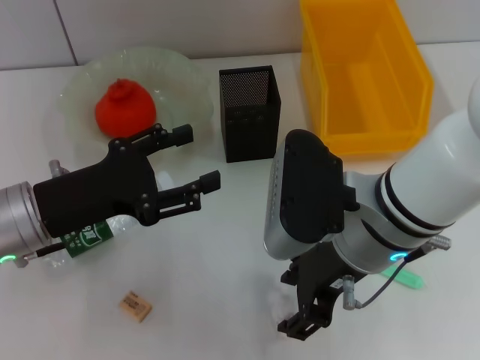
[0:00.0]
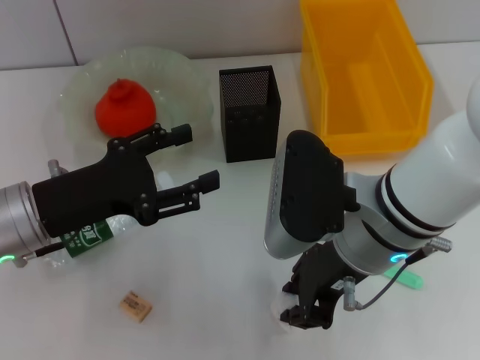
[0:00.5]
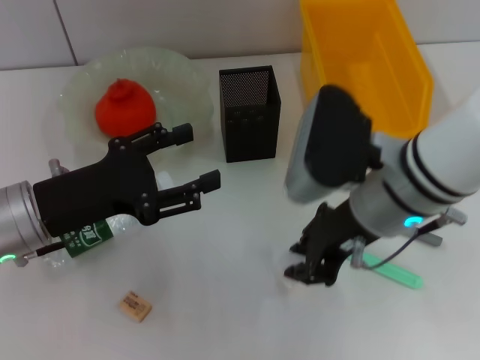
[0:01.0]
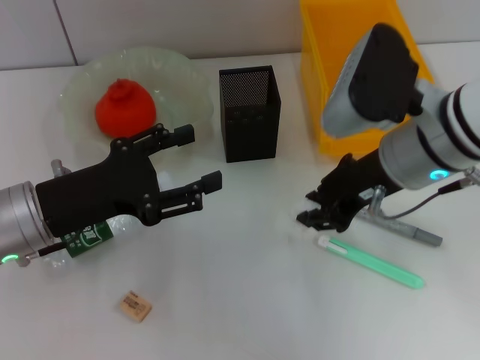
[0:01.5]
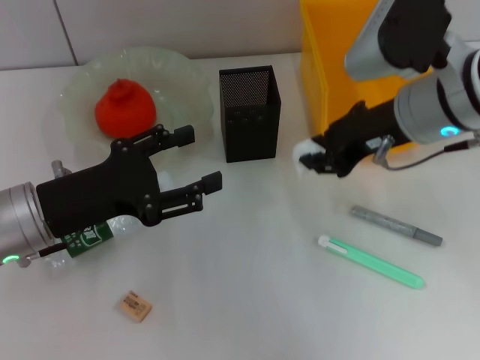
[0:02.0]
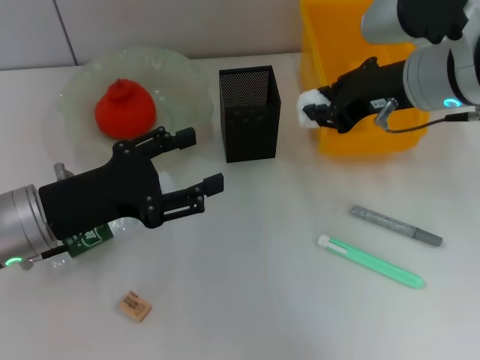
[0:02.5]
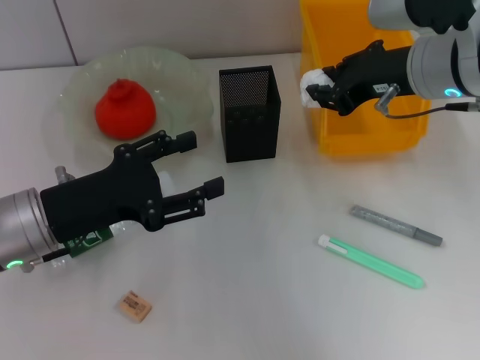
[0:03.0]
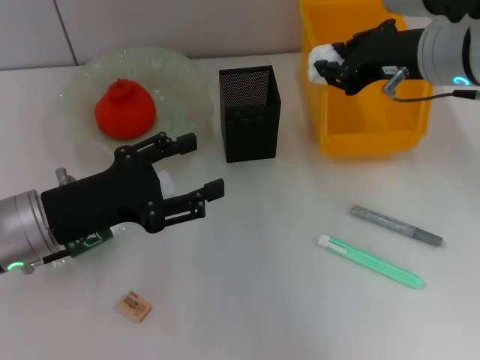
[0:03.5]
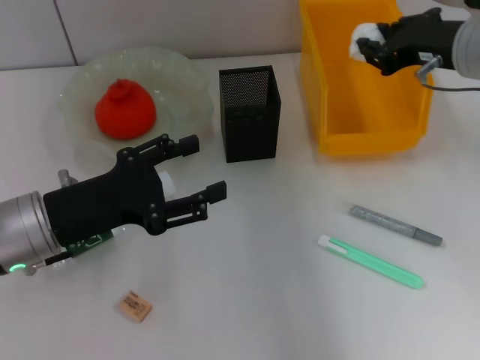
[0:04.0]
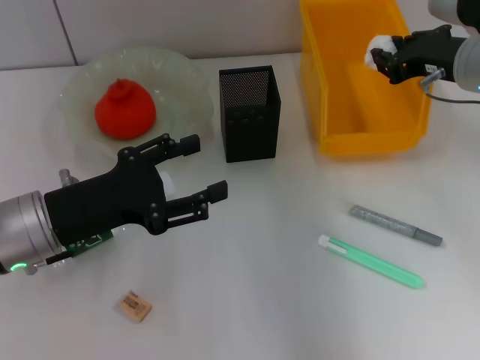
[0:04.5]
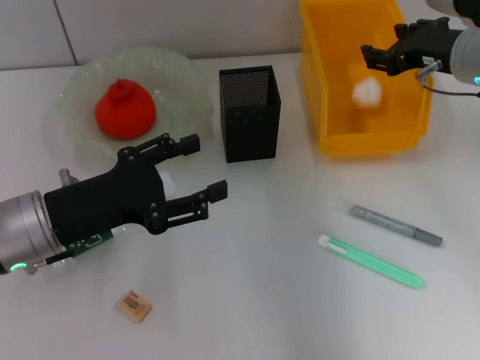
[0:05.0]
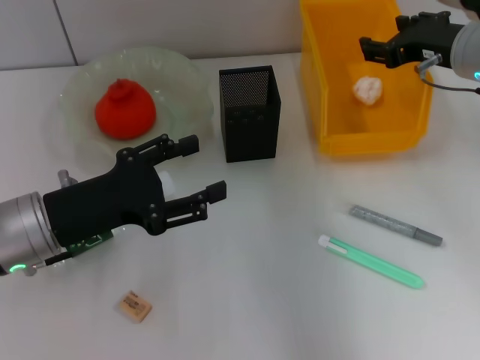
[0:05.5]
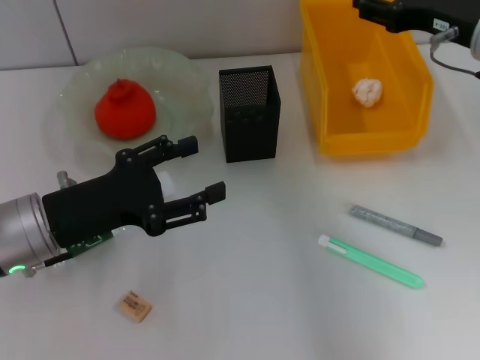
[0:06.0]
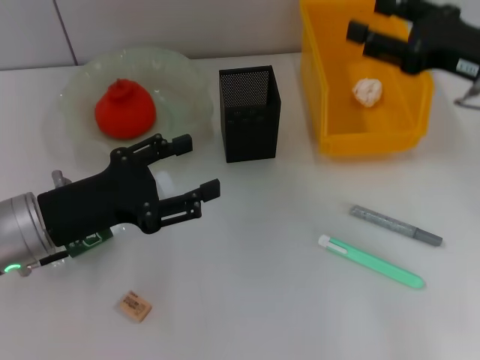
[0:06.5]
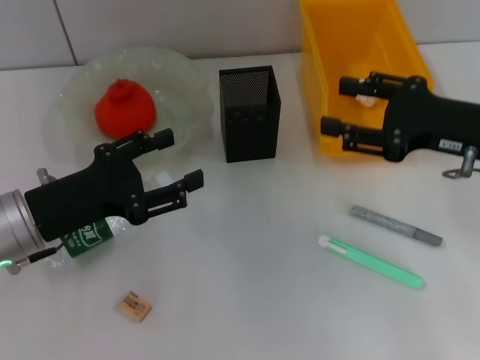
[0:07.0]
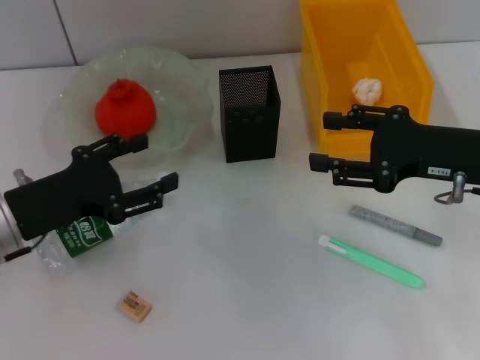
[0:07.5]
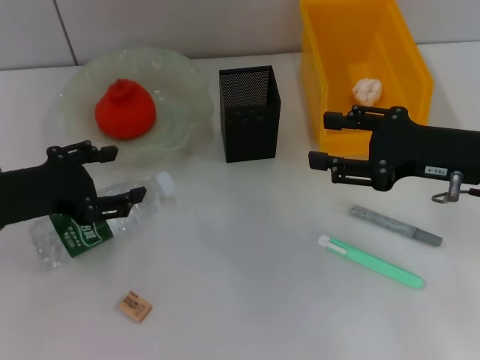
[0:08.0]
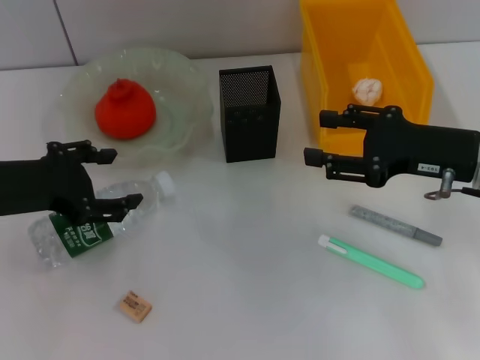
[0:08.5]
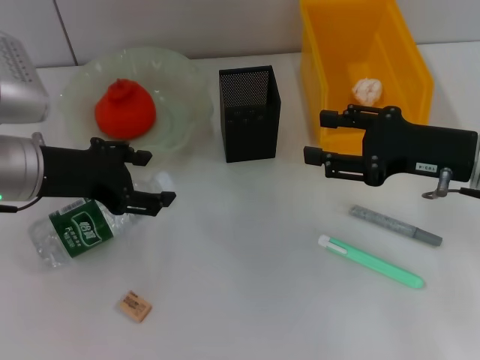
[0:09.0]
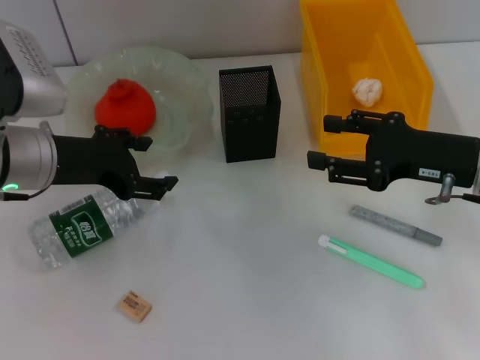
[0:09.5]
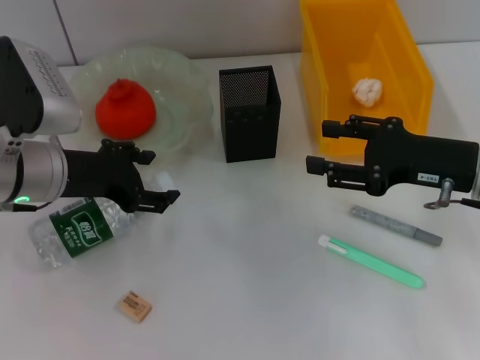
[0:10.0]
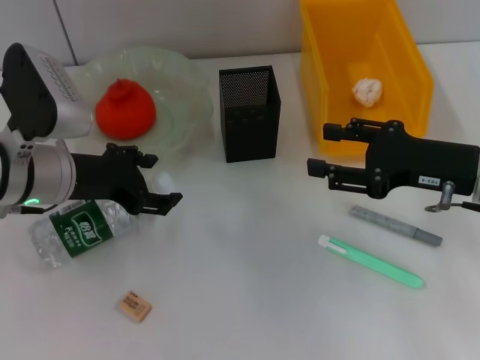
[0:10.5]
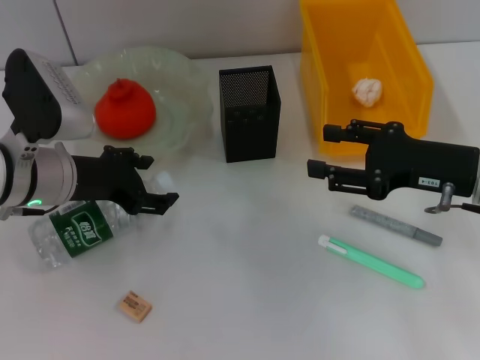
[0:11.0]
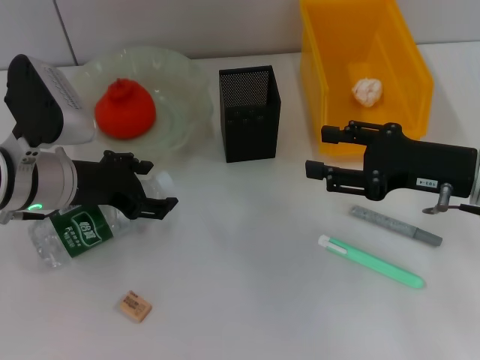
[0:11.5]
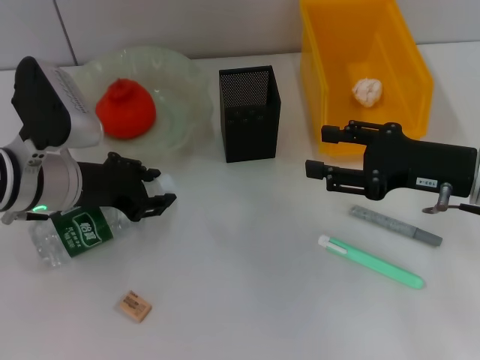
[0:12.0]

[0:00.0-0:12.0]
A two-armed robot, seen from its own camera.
Step, 0:01.0 to 0:05.0: Place the paper ball into the trash can with the right hand.
0:00.0 to 0:02.0: The right gripper heads to the right and forward, covering roughly 10 cm, and closes up.
0:02.0 to 0:04.0: The right gripper goes approximately 5 cm to the right.
0:04.0 to 0:06.0: The right gripper opens its fingers.
0:06.0 to 0:08.0: The left gripper changes place by about 5 cm; the right gripper moves backward and downward, some 10 cm.
0:08.0 to 0:10.0: The left gripper travels to the right by approximately 5 cm.
0:10.0 to 0:12.0: The grippers stay close to where they were, moving slightly.

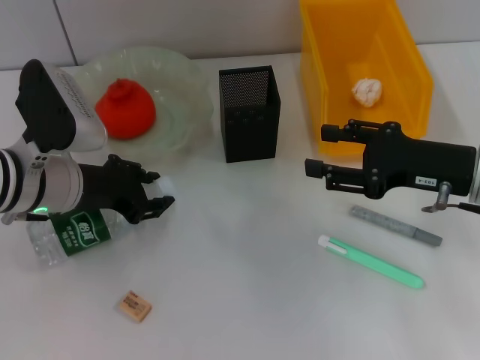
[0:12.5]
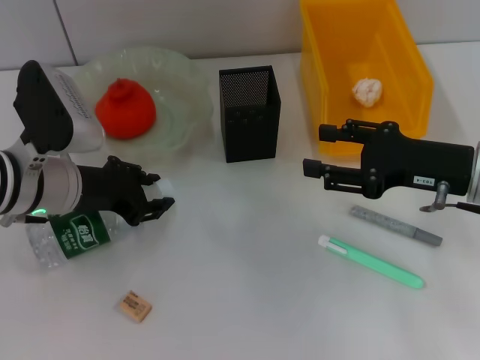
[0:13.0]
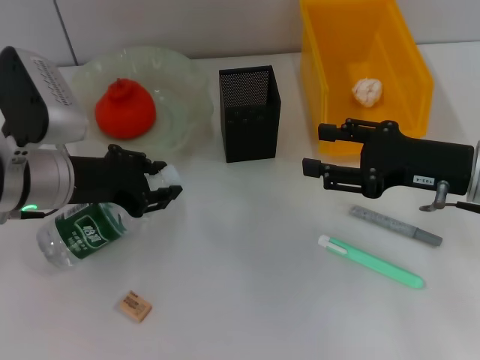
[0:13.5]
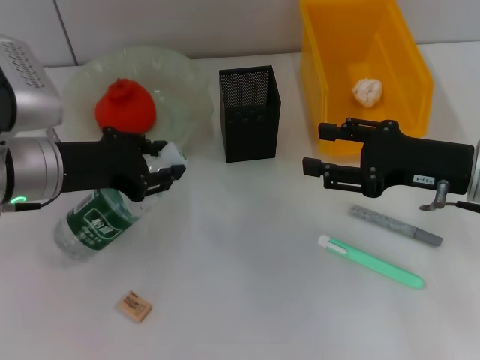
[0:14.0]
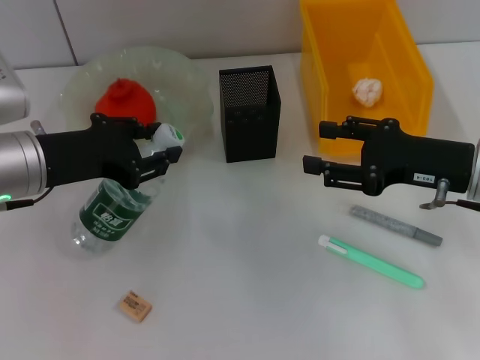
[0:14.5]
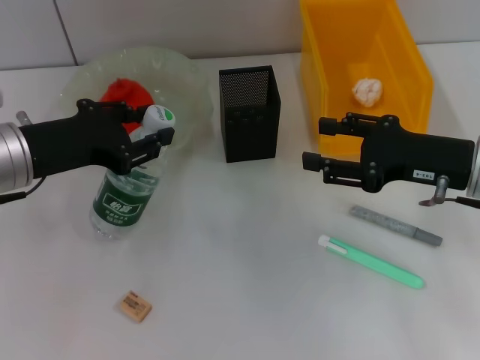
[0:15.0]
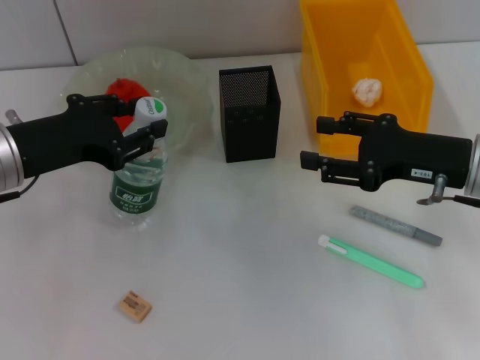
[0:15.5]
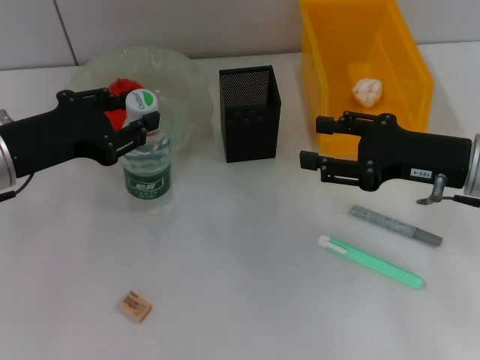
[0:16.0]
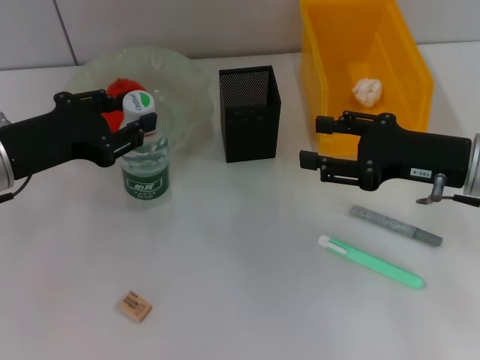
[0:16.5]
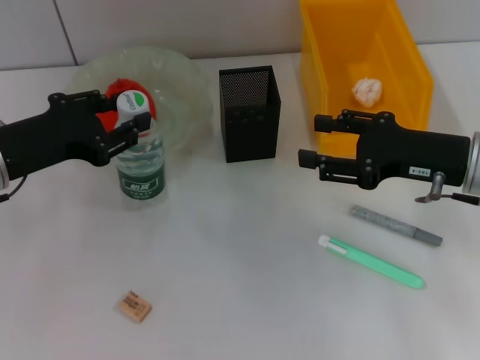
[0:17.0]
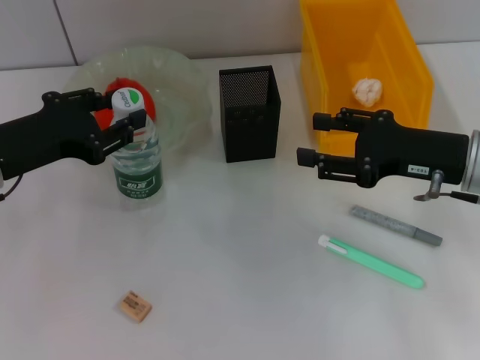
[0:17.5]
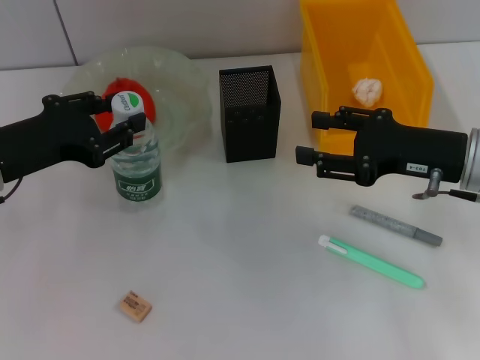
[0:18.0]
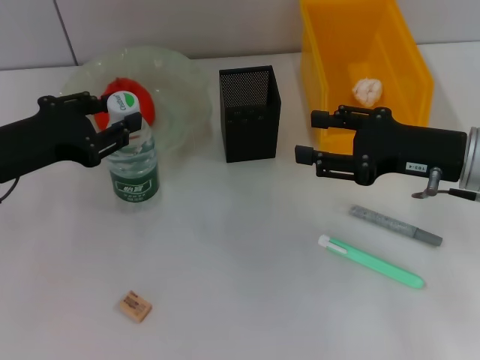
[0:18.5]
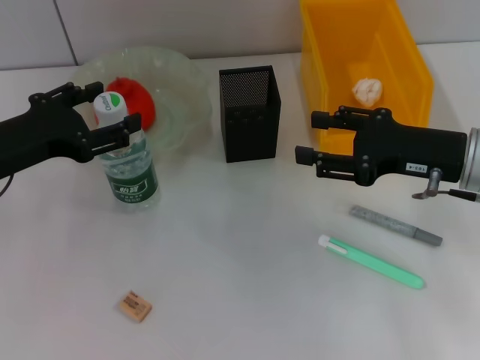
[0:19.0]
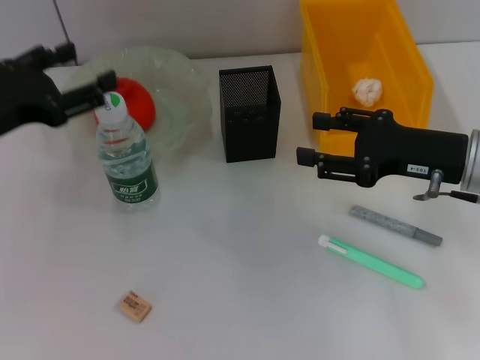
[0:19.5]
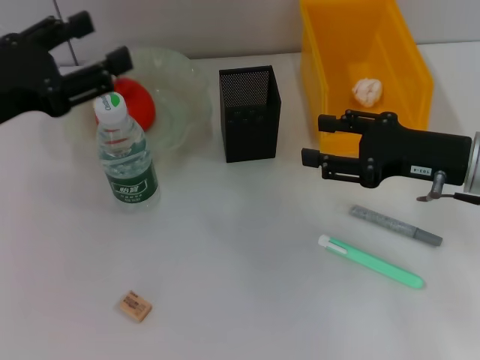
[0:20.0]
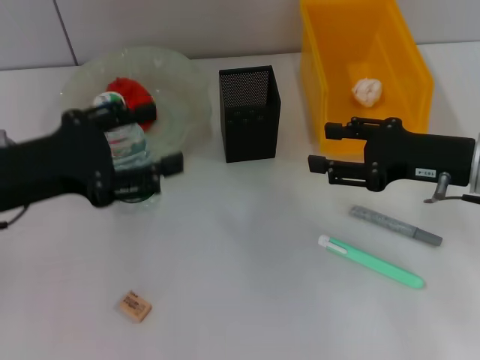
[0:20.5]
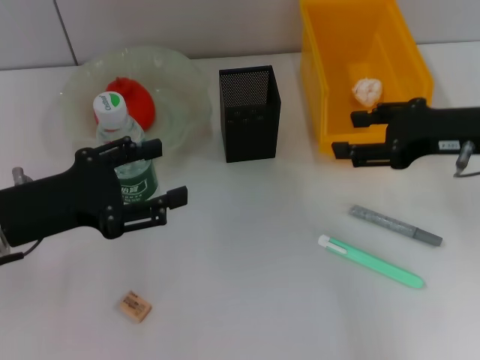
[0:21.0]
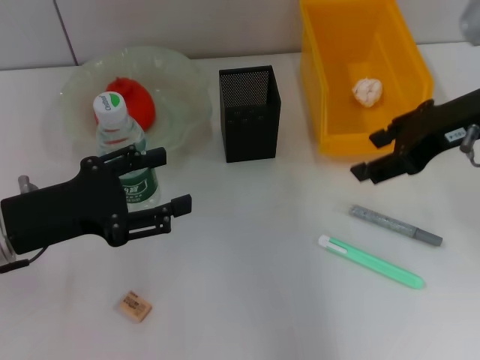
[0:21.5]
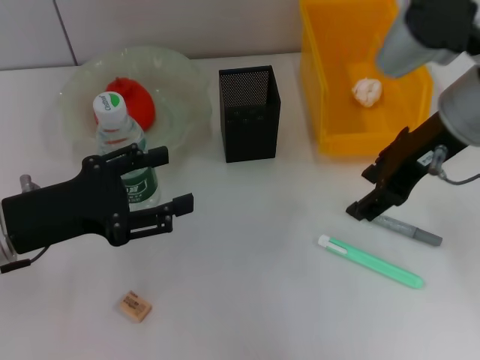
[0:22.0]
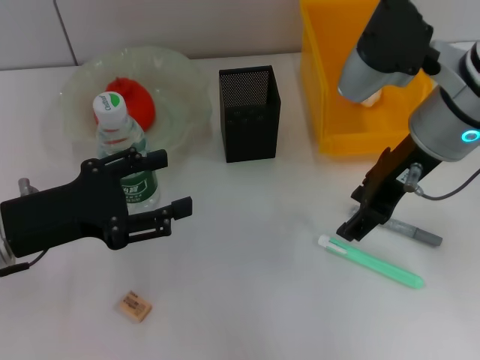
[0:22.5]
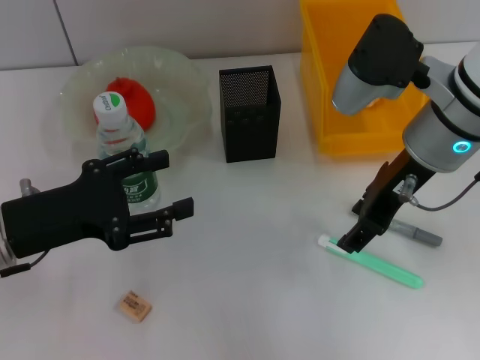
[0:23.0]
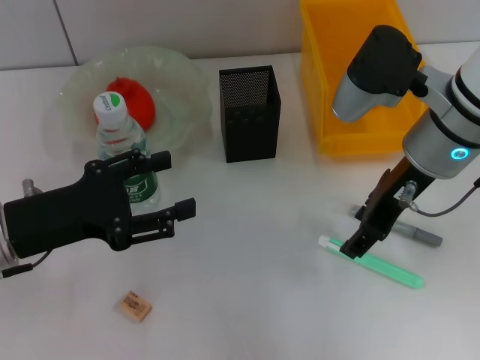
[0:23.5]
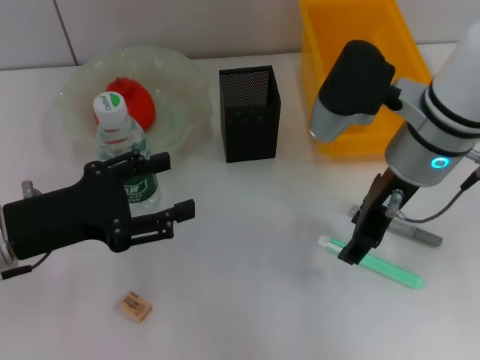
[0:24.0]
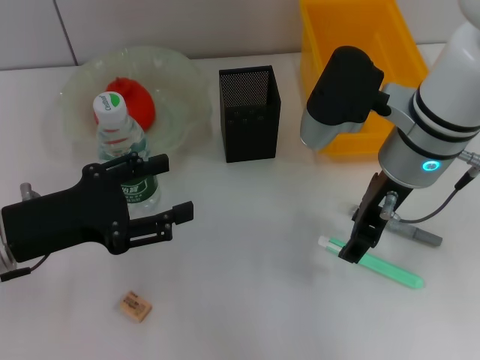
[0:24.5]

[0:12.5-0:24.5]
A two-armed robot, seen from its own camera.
Step, 0:13.5 to 0:19.0: Place the water bottle on the table with the left hand.
0:12.5 to 0:14.5: The left gripper moves about 5 cm.
0:14.5 to 0:16.5: There are only small adjustments of the grippers.
0:16.5 to 0:18.5: The two grippers keep their place.
0:20.5 to 0:22.5: The right gripper is displaced to the left and upward by some 15 cm.
0:22.5 to 0:24.5: The grippers move only a little.

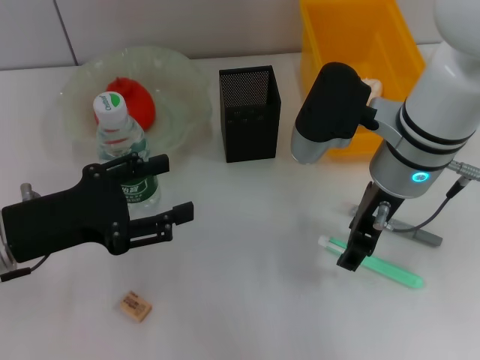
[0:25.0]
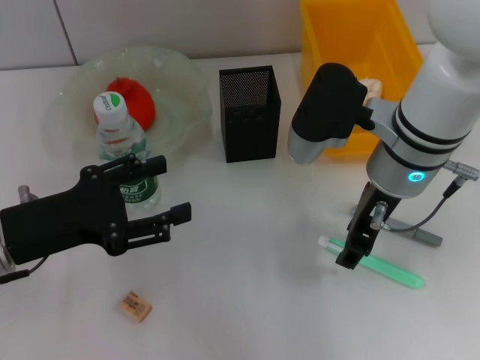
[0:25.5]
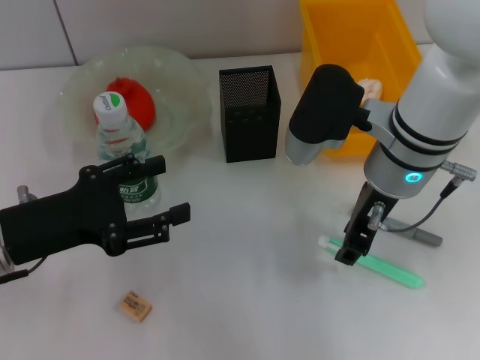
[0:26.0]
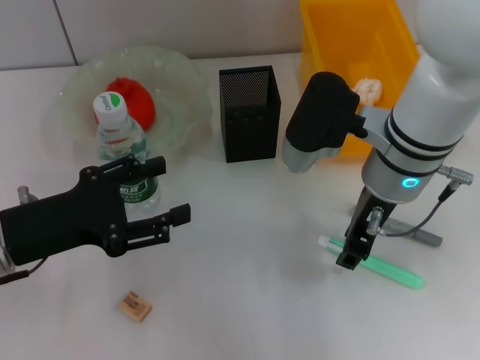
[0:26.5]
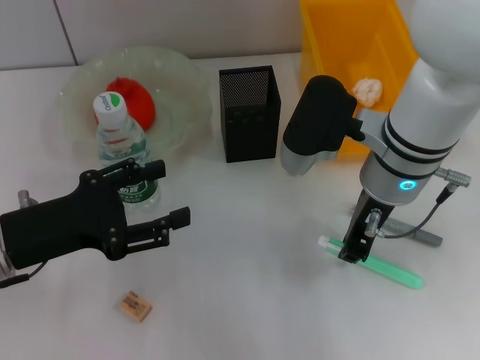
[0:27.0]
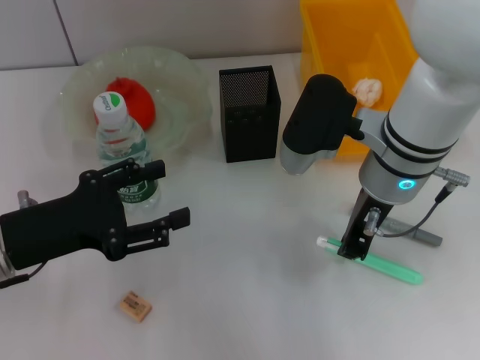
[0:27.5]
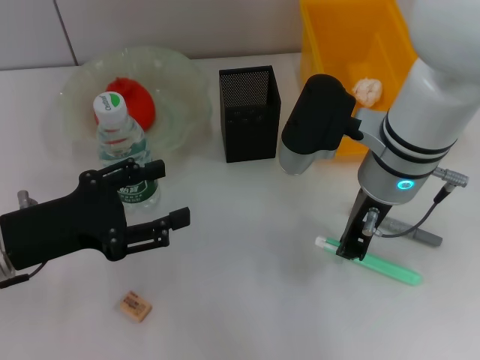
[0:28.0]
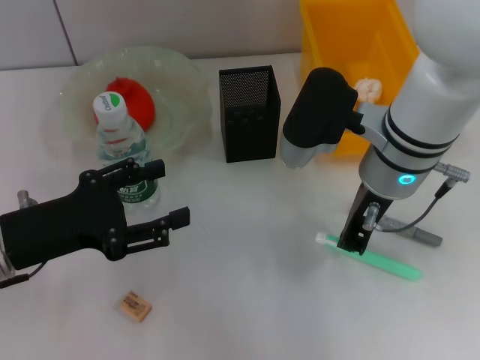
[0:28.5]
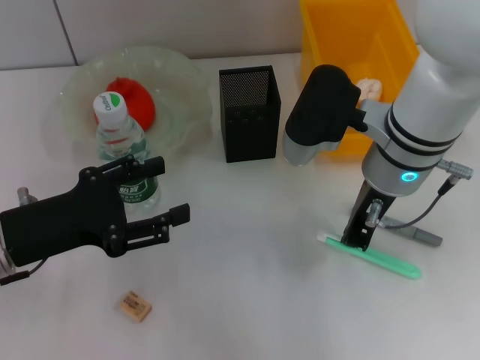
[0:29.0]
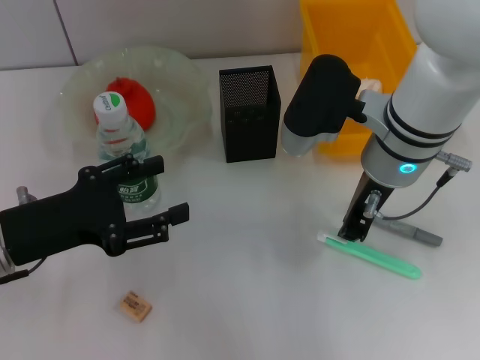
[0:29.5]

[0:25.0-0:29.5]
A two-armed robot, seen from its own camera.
0:25.0 to 0:27.0: The right gripper closes its fingers.
0:27.0 to 0:29.5: The two grippers keep their place.
